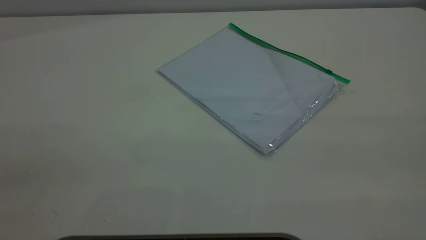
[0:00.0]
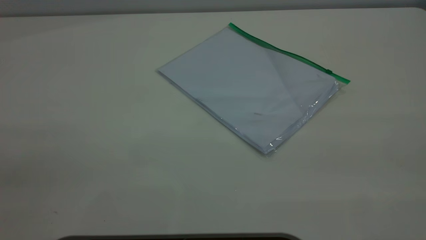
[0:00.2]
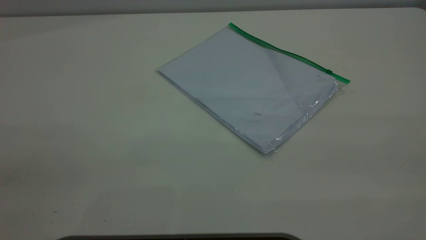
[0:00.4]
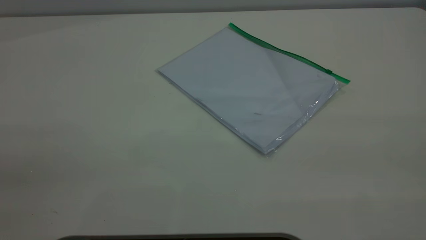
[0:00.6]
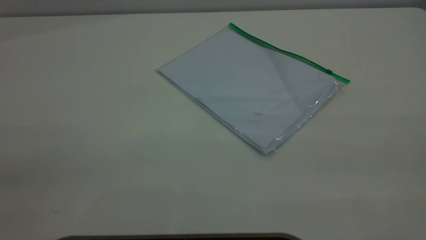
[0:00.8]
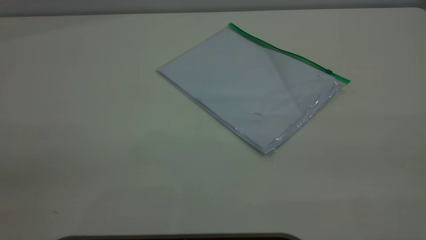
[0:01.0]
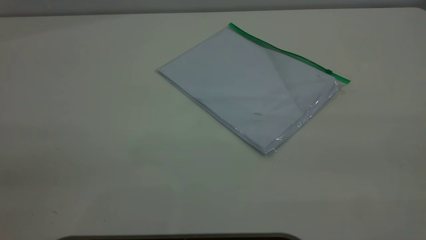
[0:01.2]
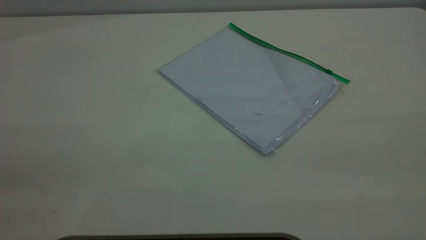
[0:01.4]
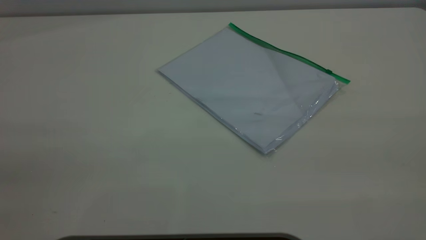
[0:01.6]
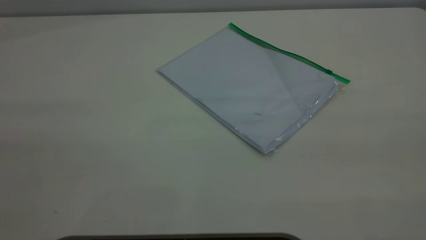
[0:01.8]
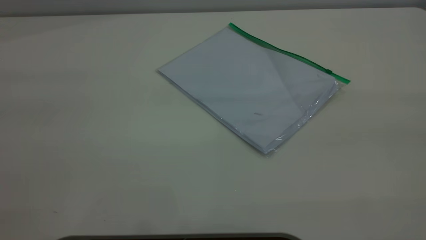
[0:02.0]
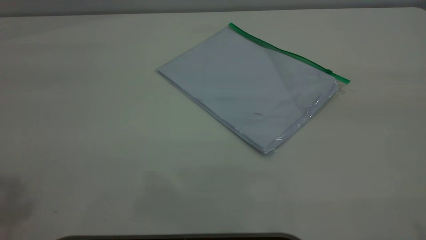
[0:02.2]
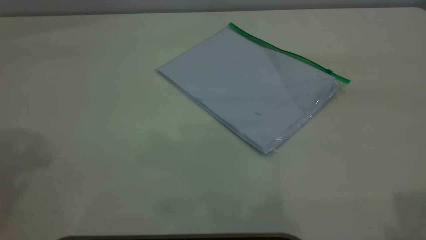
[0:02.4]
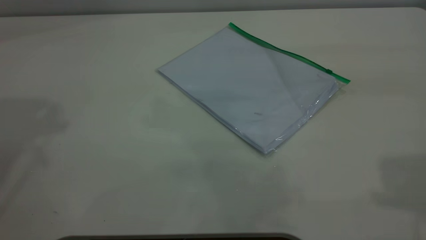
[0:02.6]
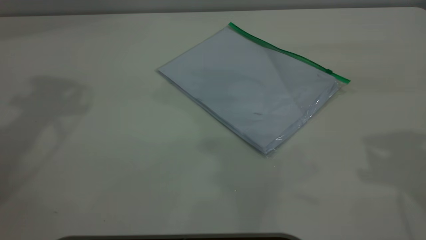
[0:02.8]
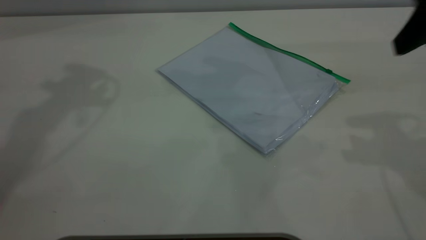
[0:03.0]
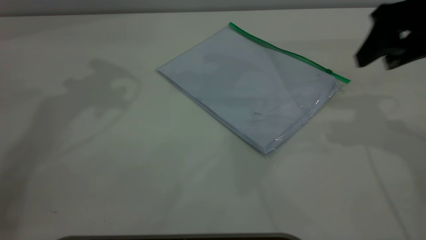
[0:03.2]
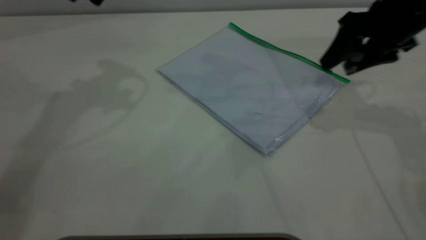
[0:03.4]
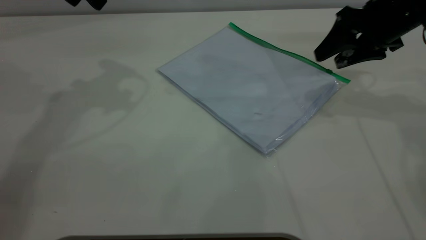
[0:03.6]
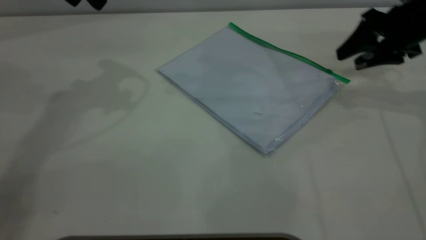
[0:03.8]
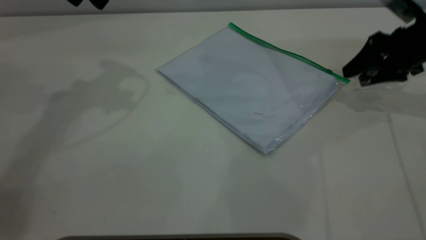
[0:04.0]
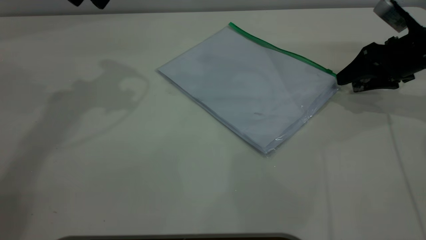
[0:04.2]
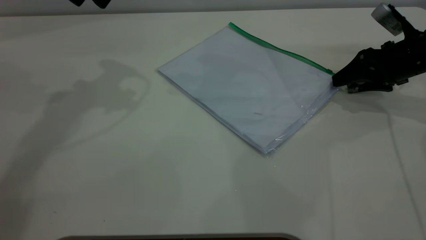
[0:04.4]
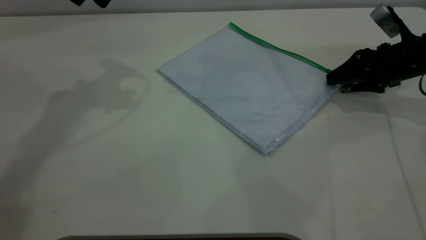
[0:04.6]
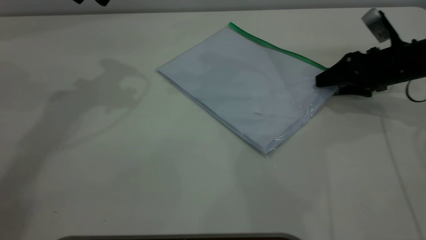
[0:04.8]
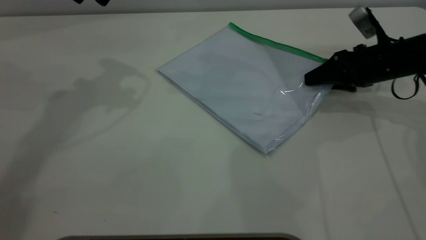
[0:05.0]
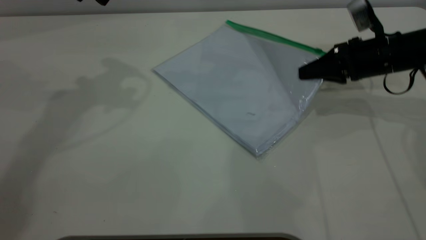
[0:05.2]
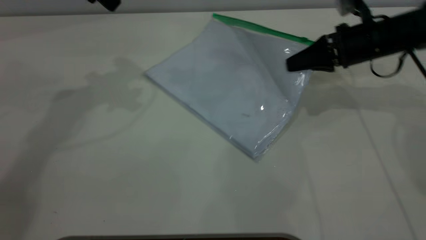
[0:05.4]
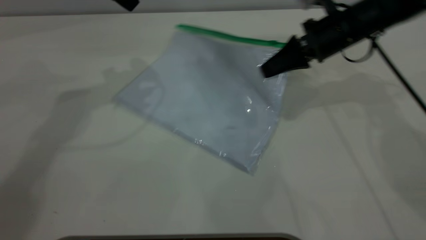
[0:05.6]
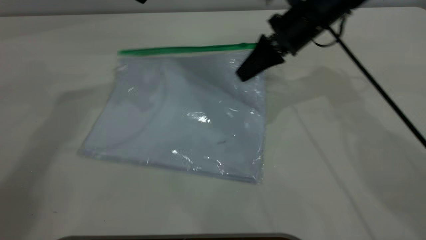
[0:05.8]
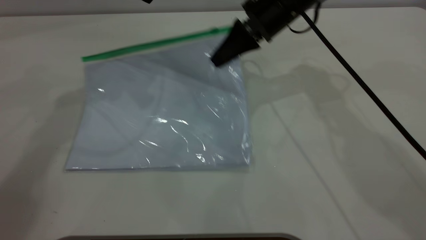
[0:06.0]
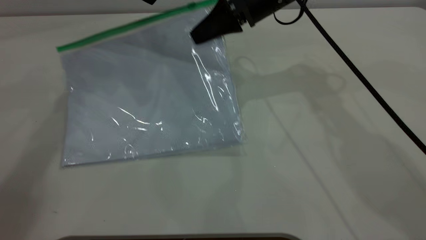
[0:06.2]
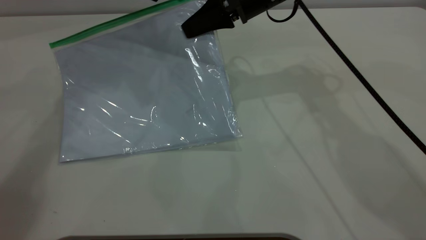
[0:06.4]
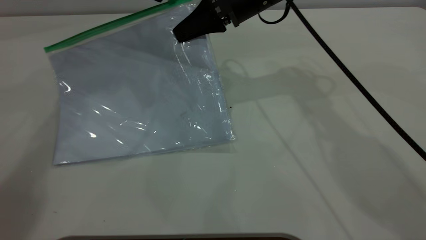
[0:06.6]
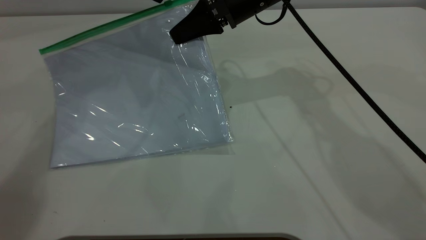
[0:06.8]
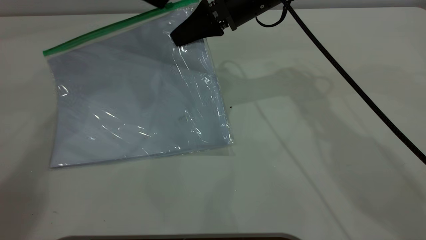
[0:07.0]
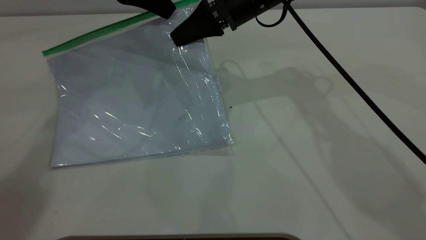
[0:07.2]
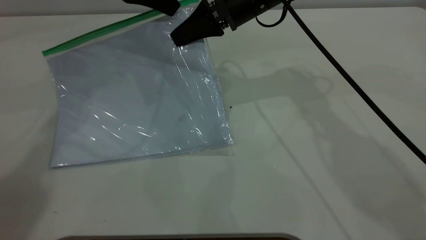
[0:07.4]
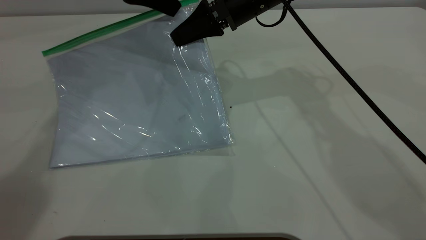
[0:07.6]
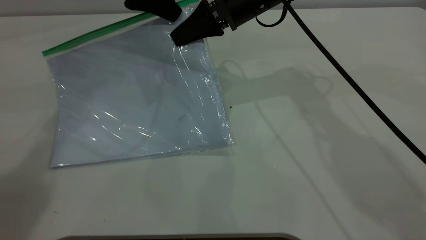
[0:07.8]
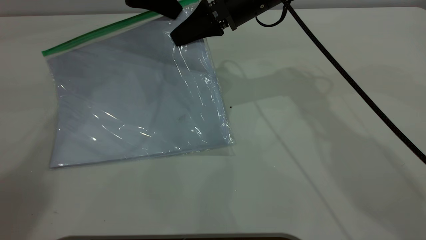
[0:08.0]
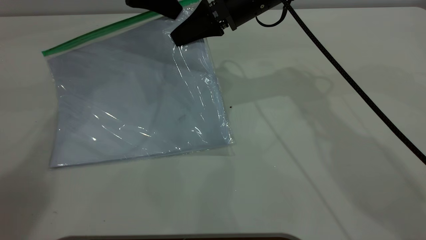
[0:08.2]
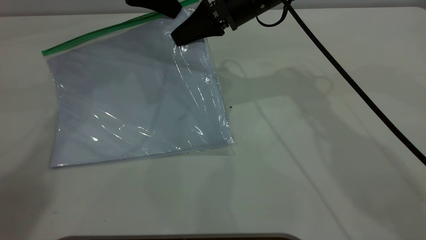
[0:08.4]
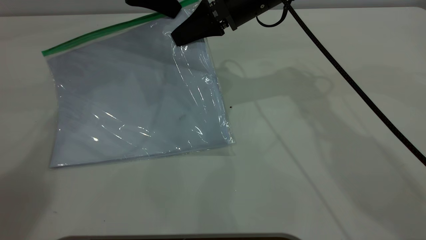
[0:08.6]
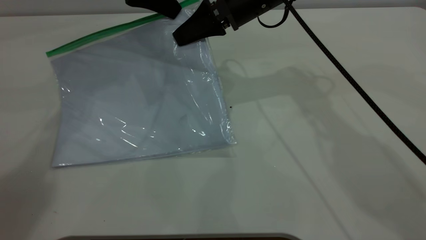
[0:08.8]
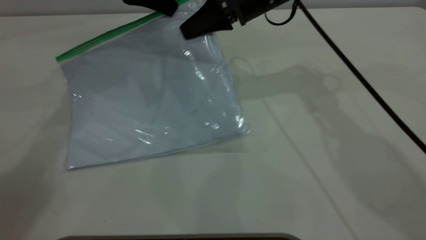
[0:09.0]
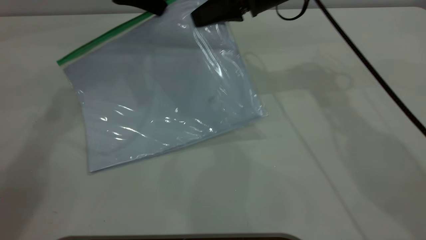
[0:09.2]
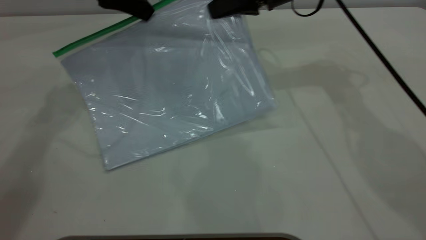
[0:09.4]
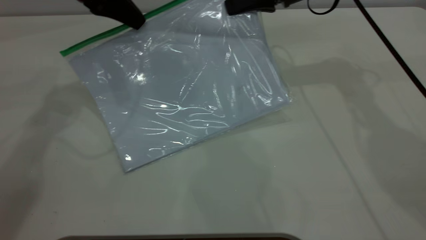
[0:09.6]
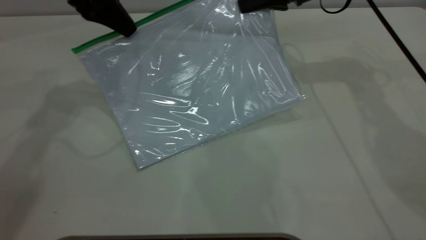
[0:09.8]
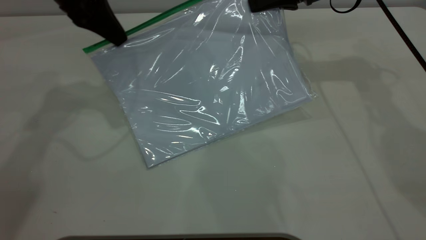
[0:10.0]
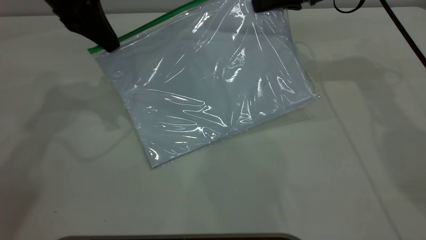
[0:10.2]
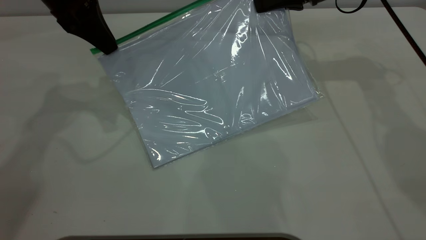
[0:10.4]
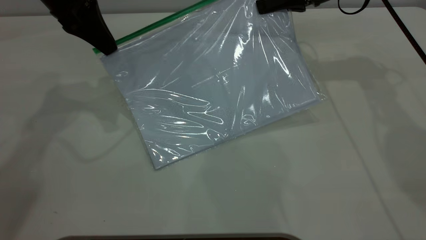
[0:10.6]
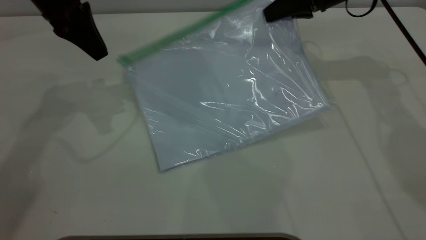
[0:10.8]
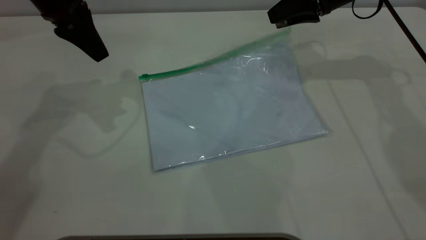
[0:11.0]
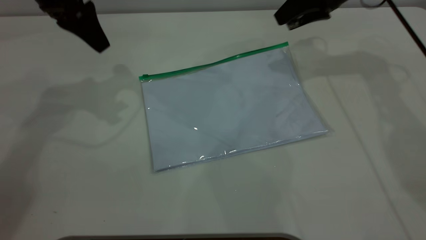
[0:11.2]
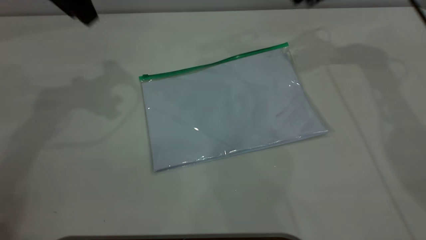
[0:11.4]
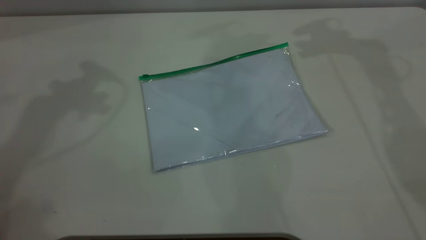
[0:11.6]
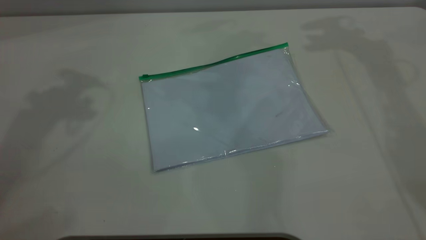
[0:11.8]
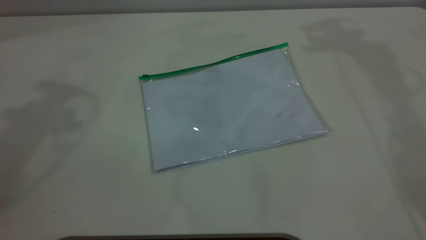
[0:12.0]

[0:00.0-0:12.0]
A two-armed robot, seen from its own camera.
Step, 0:00.0 to 0:05.2: Pick up the transparent plastic bag with the right gripper.
Step, 0:05.4 to 0:10.6: Pulling up the zipper on the transparent plastic bag with the left gripper to close it.
0:00.0 to 0:01.6: Both grippers stay about where they are.
0:01.6 to 0:03.0: The right gripper is displaced forward by some 30 cm.
0:03.0 to 0:04.4: The right gripper travels downward and forward by approximately 20 cm.
0:04.4 to 0:06.0: The right gripper moves to the left, approximately 25 cm, and closes its fingers.
0:06.0 to 0:07.6: The grippers move only a little.
0:07.6 to 0:09.0: The left gripper closes up.
0:09.0 to 0:10.4: The left gripper goes approximately 5 cm to the left; the right gripper travels to the right by some 10 cm.
0:10.4 to 0:12.0: The grippers both shift upward by some 25 cm. The left gripper opens its fingers. Meanwhile the right gripper opens its fingers.

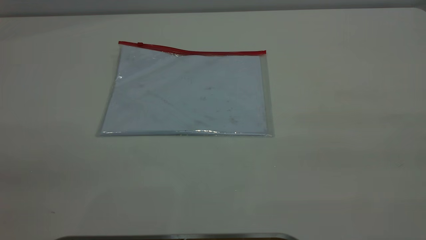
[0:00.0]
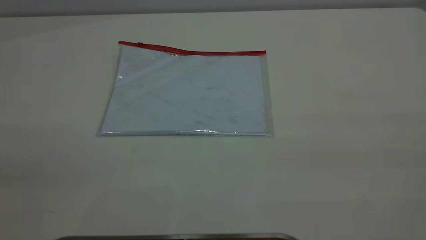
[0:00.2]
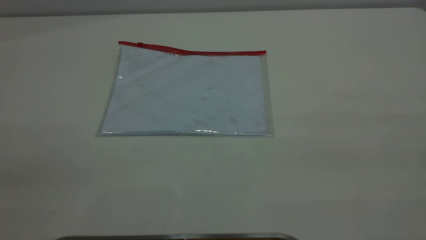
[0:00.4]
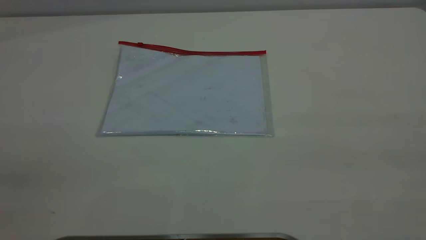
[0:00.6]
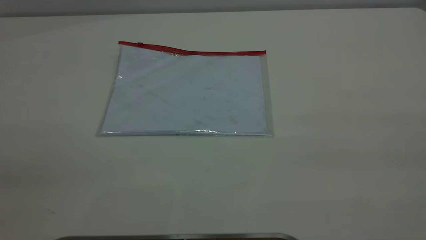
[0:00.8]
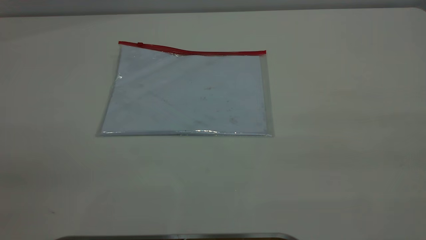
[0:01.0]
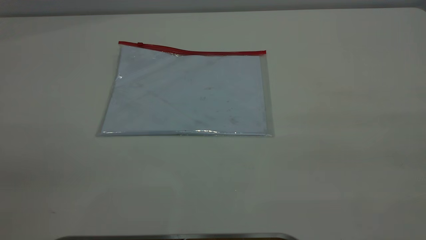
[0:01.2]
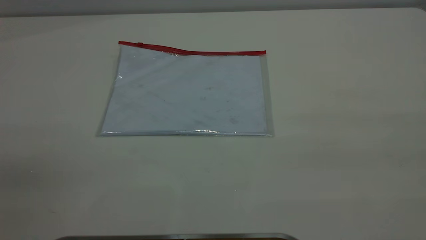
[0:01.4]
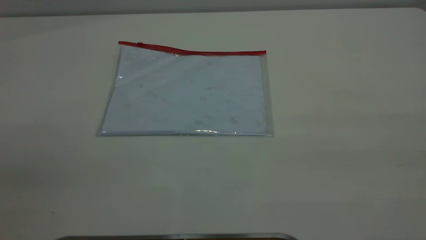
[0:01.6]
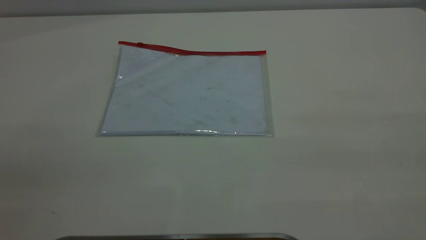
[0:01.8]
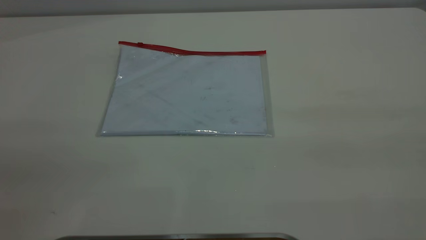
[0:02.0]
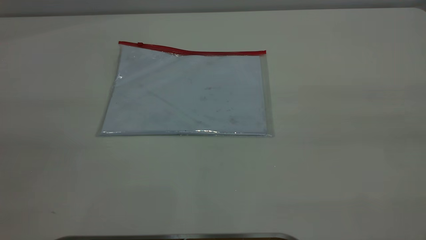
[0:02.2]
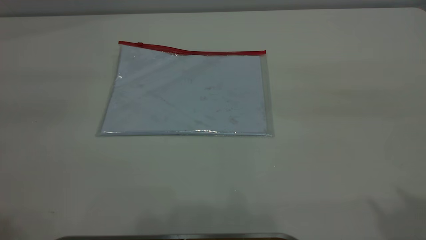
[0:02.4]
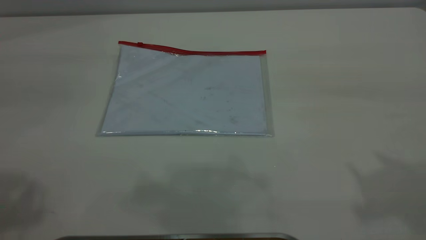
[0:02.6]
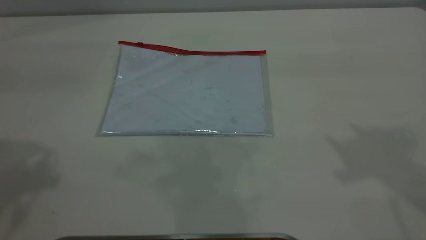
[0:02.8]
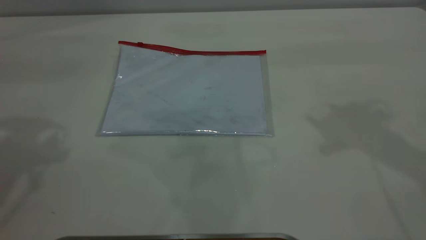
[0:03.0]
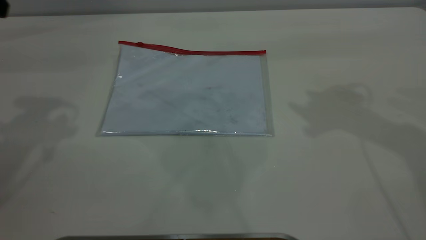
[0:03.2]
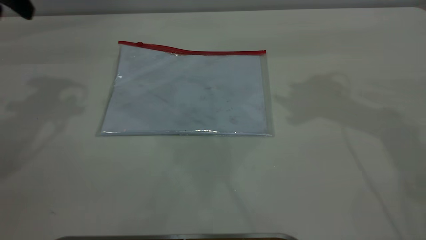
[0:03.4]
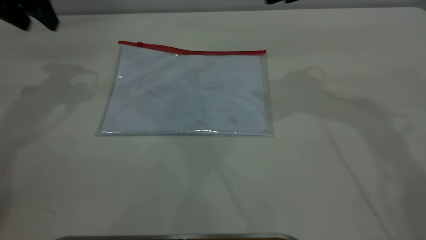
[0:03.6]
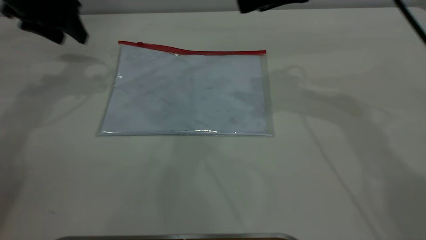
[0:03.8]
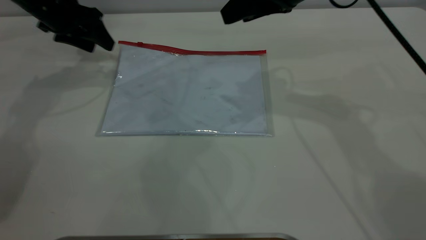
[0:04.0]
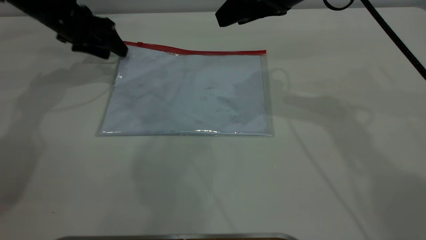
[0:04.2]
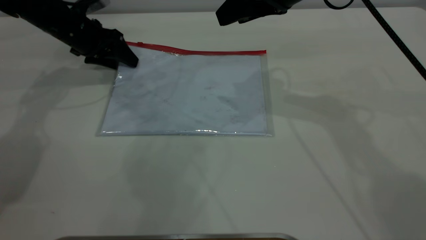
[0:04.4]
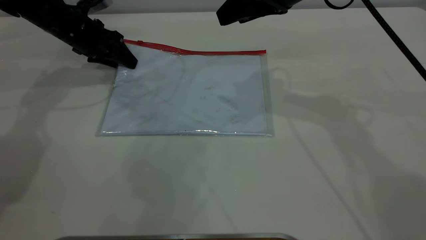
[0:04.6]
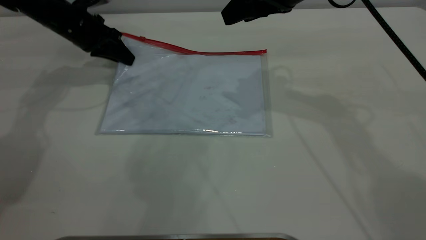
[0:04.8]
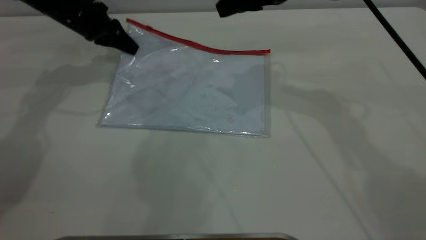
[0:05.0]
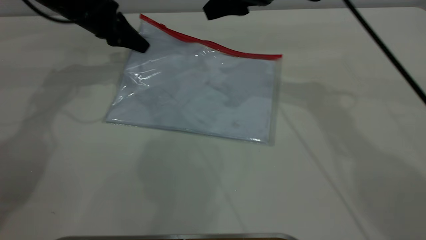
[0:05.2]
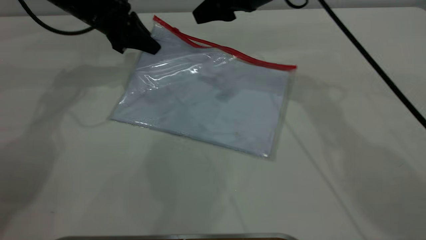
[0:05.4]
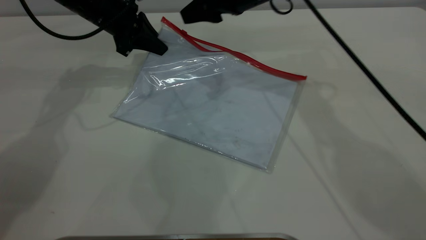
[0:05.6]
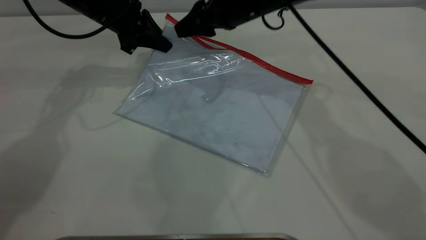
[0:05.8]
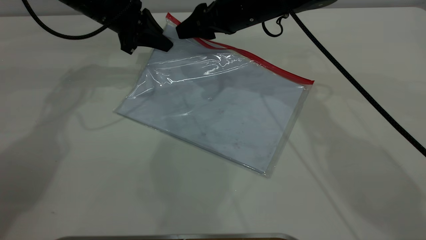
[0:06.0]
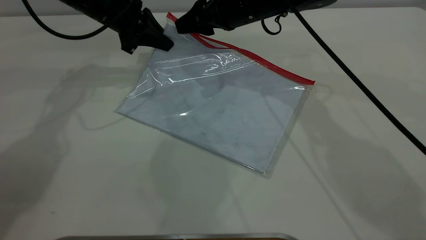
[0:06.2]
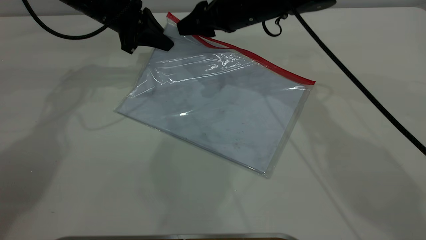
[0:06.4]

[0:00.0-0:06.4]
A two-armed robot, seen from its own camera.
Step, 0:00.0 to 0:05.0: Pick up the transparent plastic bag with the left gripper.
0:00.0 to 0:01.6: Neither gripper changes place.
0:03.2 to 0:04.8: The right gripper travels to the left, downward and forward by about 15 cm. Meanwhile the left gripper goes some 25 cm downward and forward, and closes its fingers.
0:04.8 to 0:06.4: The right gripper travels downward, to the left and forward by about 10 cm. The left gripper travels to the right by roughly 5 cm.
